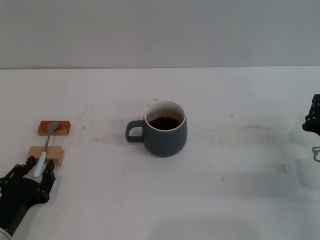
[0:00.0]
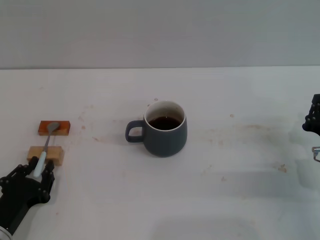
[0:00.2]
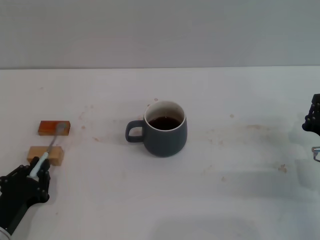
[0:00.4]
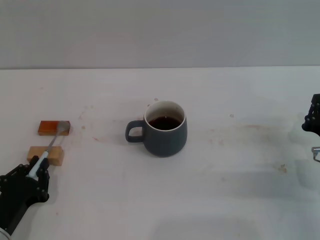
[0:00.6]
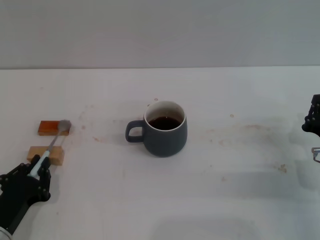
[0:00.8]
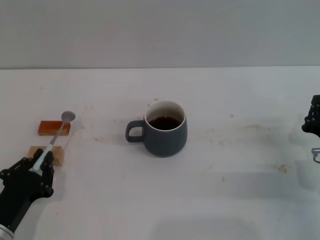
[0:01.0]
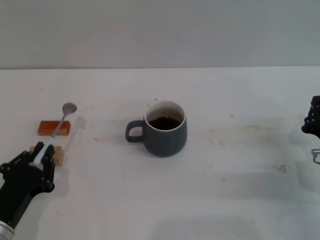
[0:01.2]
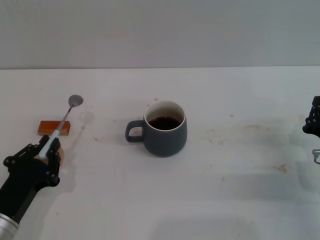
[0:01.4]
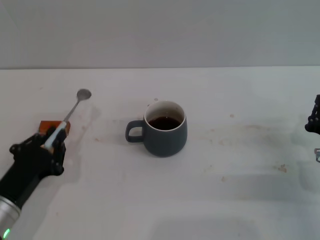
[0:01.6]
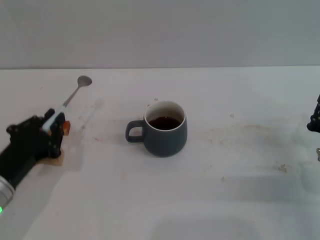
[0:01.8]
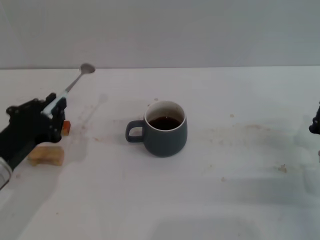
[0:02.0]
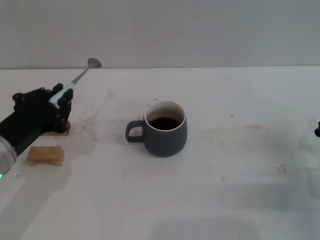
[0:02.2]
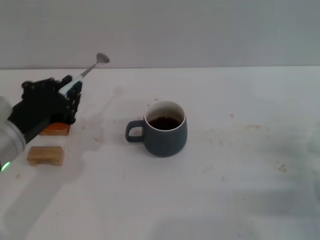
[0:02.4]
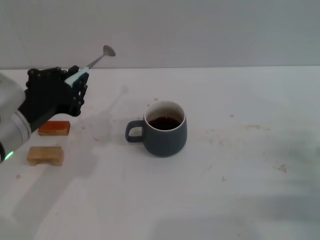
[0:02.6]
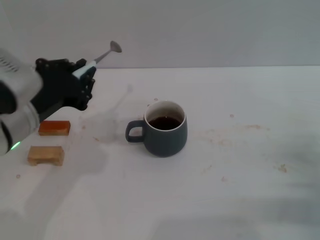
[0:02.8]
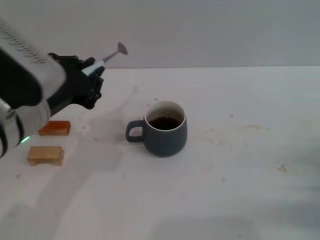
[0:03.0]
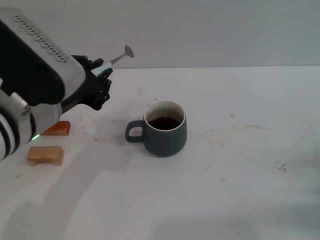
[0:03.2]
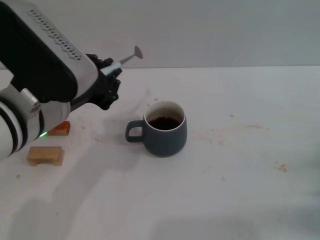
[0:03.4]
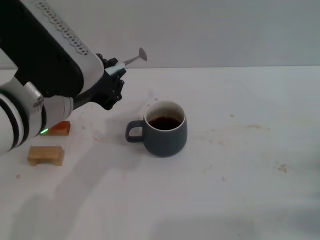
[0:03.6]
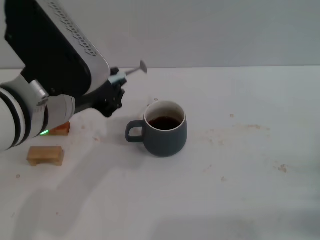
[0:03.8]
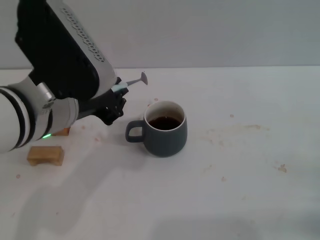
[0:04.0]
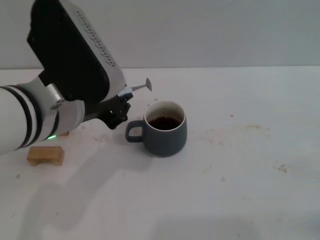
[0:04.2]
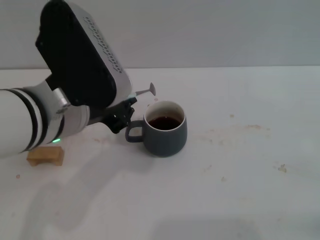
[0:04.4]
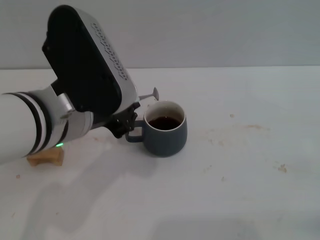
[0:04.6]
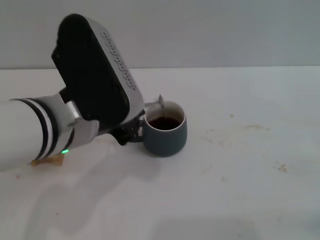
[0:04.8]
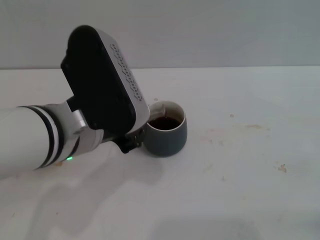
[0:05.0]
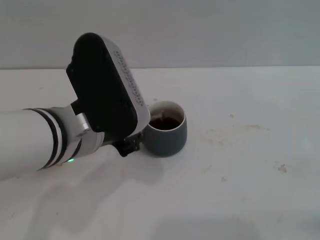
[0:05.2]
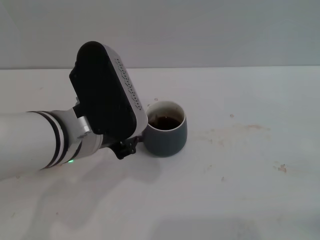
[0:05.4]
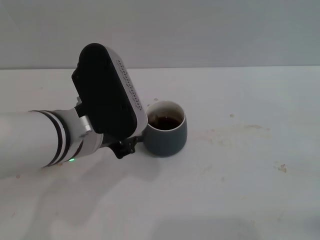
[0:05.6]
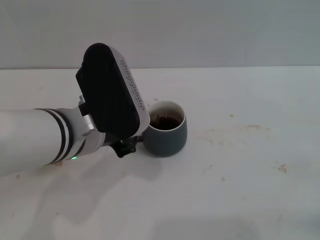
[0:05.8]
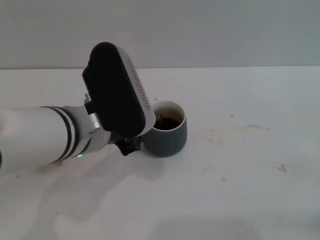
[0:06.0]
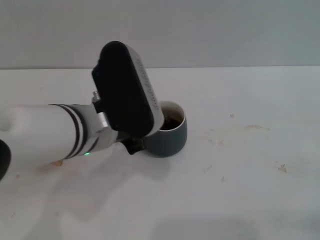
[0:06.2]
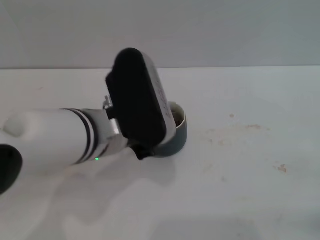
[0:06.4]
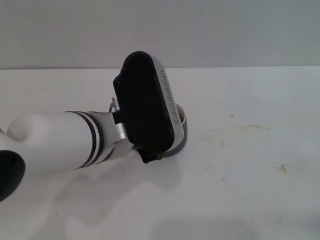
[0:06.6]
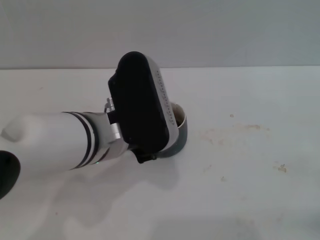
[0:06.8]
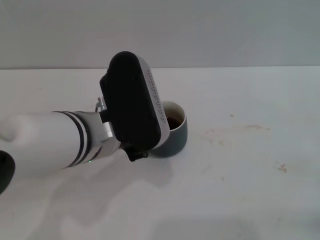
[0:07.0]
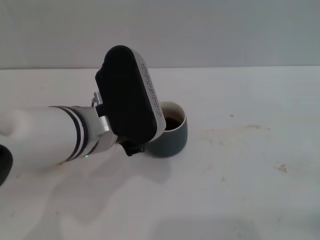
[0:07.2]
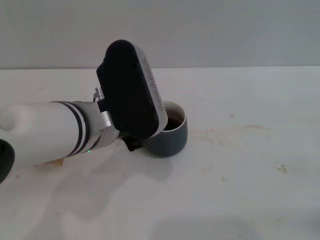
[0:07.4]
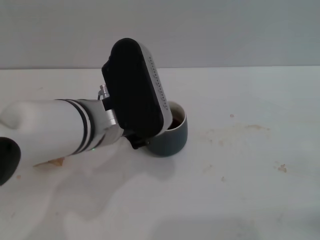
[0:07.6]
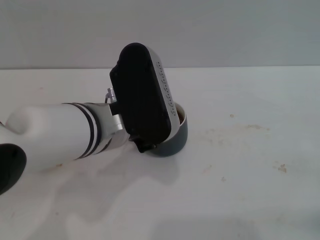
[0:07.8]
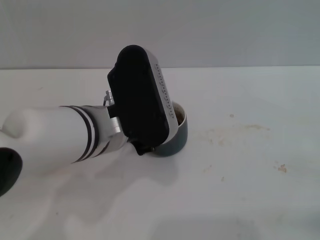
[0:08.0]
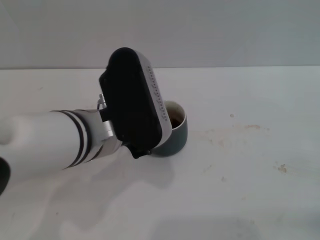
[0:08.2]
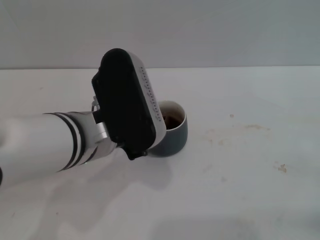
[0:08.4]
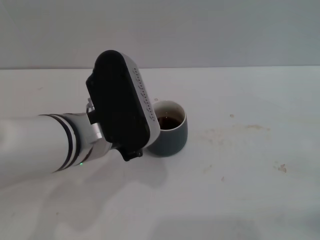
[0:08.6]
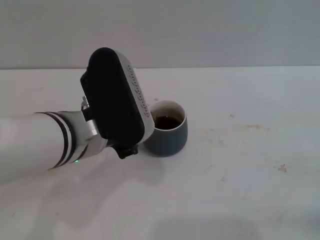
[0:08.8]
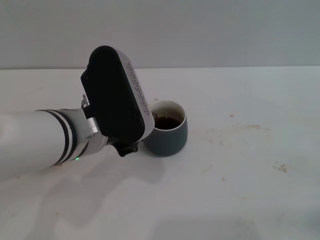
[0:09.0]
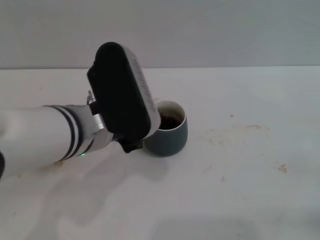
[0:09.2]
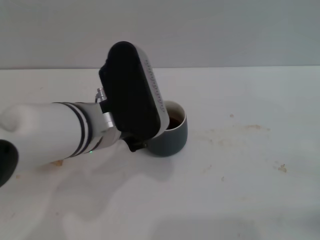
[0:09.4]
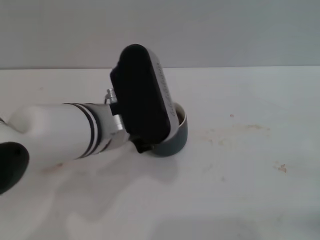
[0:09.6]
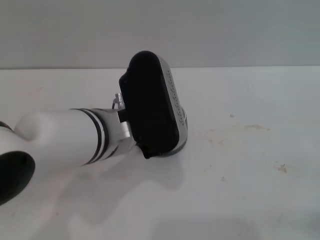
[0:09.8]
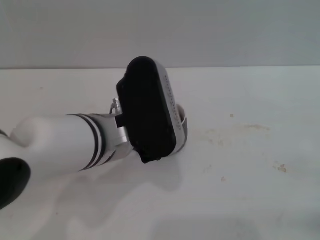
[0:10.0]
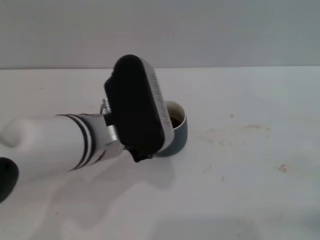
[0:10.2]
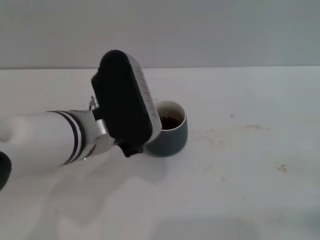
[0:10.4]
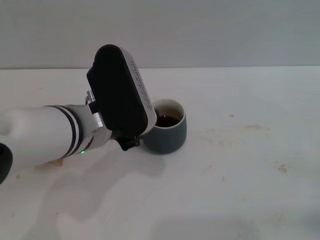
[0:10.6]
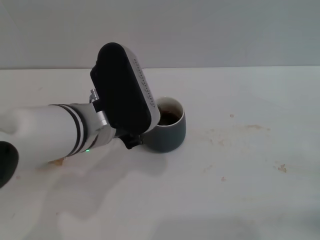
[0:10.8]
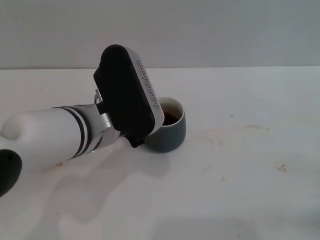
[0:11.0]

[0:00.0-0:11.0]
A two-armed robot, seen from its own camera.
Task of the whole recording: Move the grey cup to the center, lift the blue spoon, stir it three times in the cup, and put the spoon into the cup.
Step, 0.0 to 2.8 s: Pick up the spoon with the left gripper.
0.0 to 1.6 s: The left gripper closes.
1.6 to 3.2 s: The left gripper goes some 20 cm upward and to the right. Meanwhile the right gripper goes approximately 5 cm backward.
4.8 to 11.0 s: The grippers make only small movements.

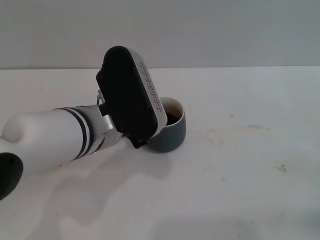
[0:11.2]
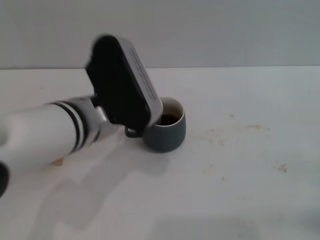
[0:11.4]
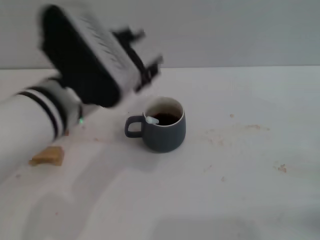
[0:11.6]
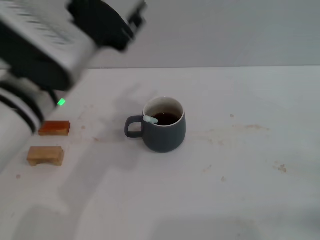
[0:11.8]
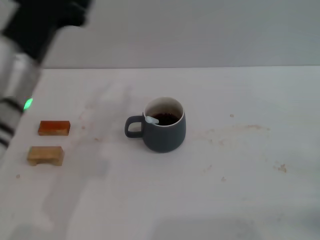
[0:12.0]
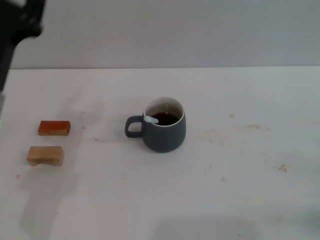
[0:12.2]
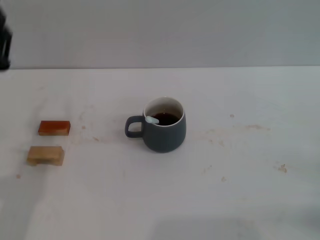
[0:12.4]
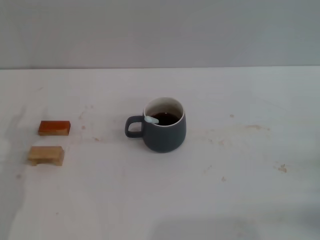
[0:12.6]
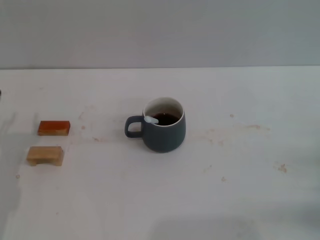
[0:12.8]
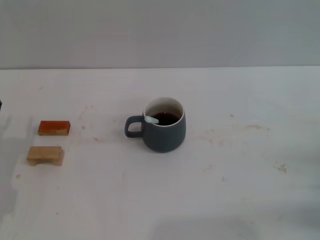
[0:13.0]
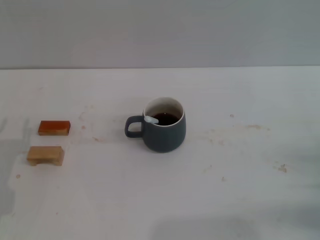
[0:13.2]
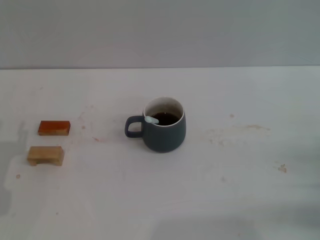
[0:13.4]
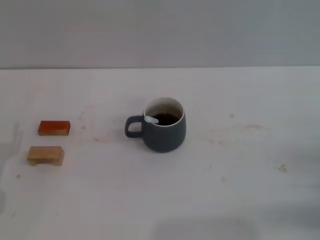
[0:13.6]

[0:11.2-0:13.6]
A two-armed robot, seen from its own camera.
Task of the whole recording: Move the grey cup to the center, lift the blue spoon, stir it three times in the cup, and put the spoon into the cup.
11.2 to 12.4 s: The left gripper travels to the left by approximately 15 cm, and opens up.
12.4 to 13.6 s: The left gripper moves downward and to the left, some 10 cm.

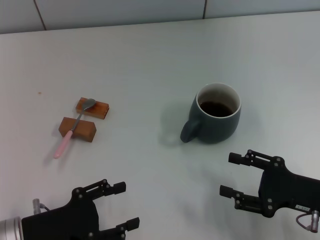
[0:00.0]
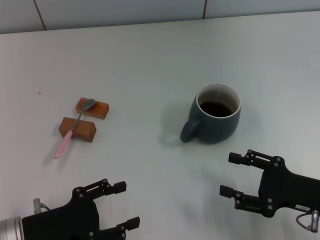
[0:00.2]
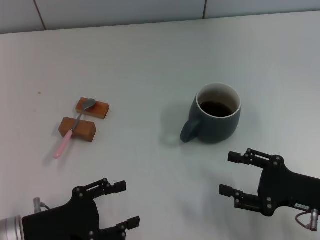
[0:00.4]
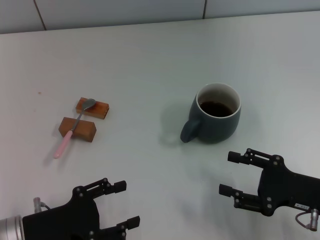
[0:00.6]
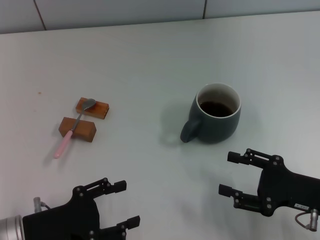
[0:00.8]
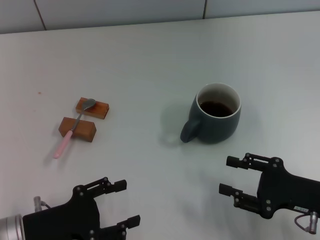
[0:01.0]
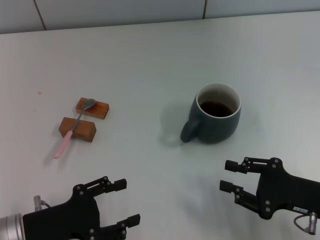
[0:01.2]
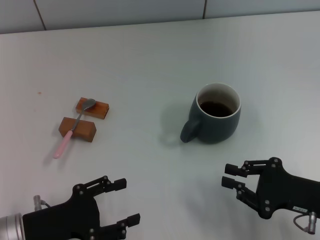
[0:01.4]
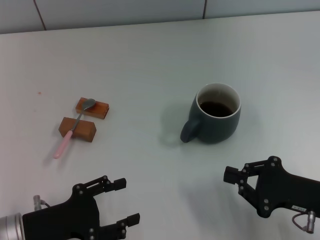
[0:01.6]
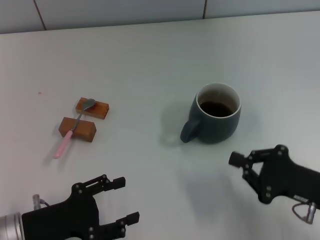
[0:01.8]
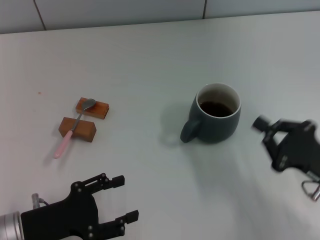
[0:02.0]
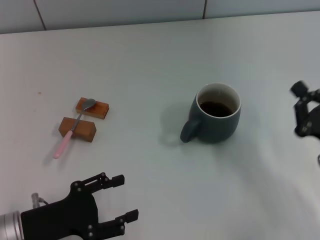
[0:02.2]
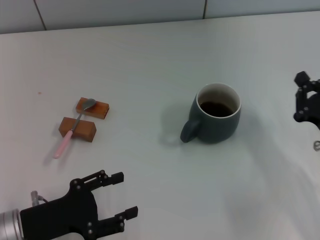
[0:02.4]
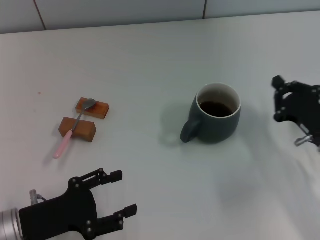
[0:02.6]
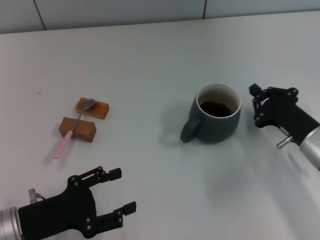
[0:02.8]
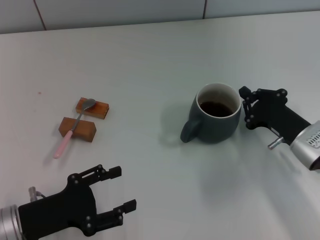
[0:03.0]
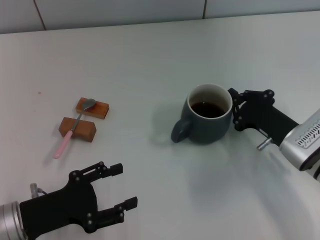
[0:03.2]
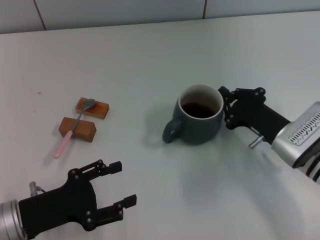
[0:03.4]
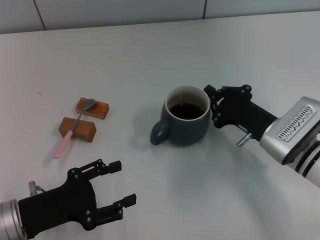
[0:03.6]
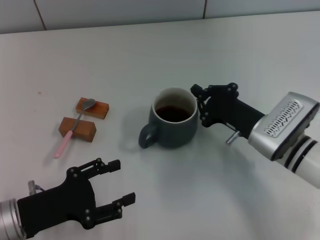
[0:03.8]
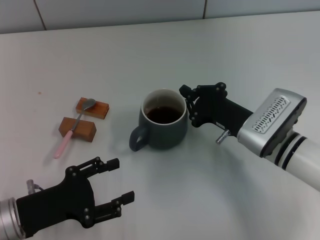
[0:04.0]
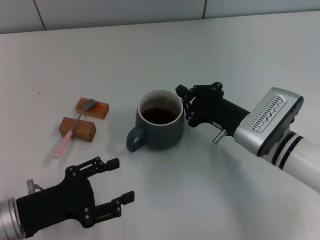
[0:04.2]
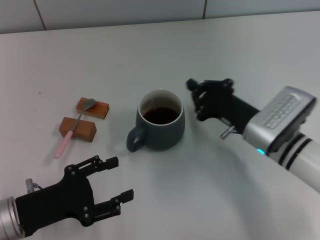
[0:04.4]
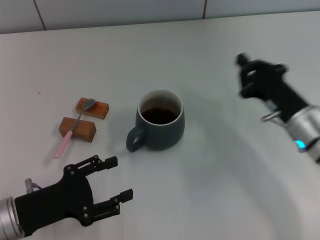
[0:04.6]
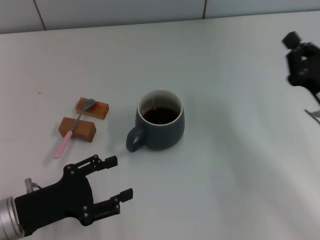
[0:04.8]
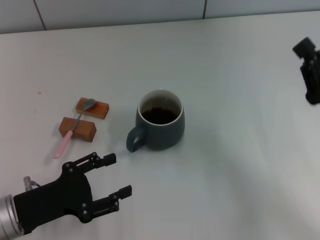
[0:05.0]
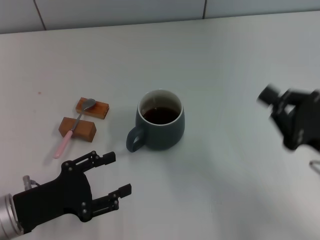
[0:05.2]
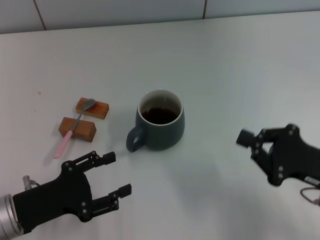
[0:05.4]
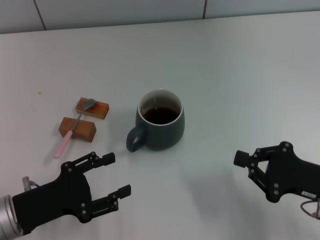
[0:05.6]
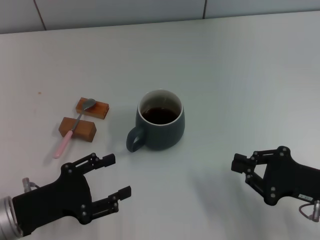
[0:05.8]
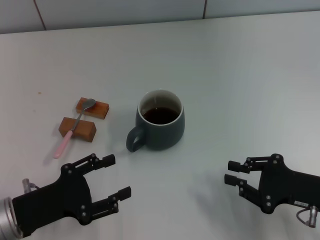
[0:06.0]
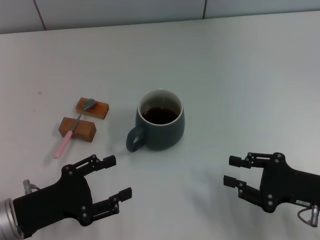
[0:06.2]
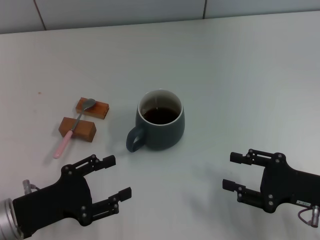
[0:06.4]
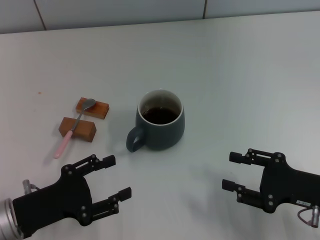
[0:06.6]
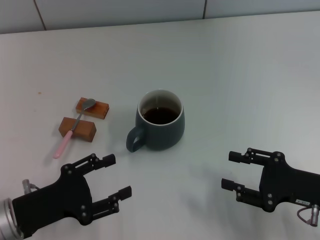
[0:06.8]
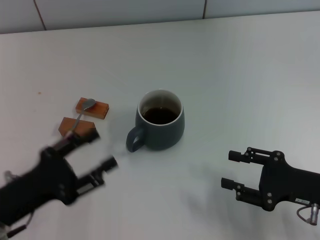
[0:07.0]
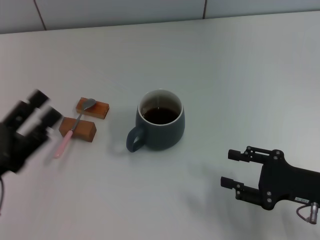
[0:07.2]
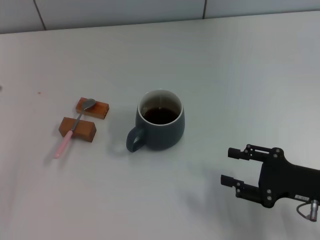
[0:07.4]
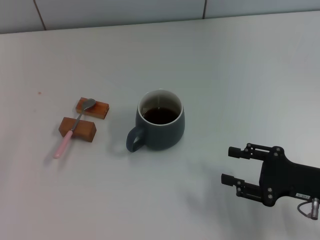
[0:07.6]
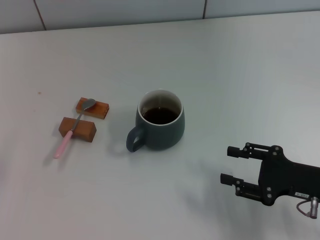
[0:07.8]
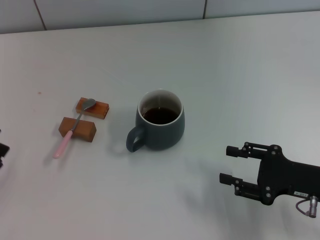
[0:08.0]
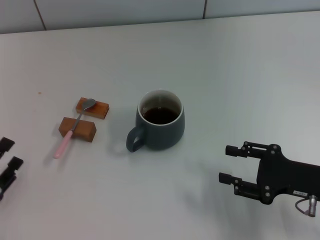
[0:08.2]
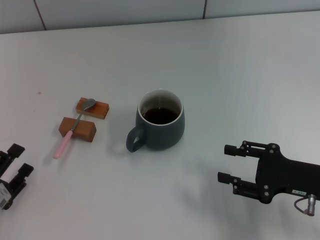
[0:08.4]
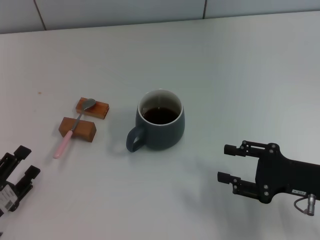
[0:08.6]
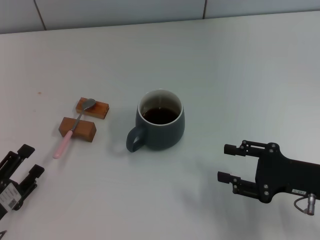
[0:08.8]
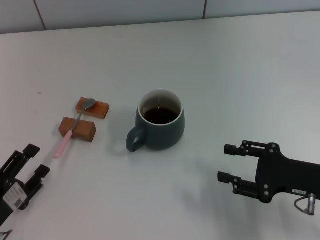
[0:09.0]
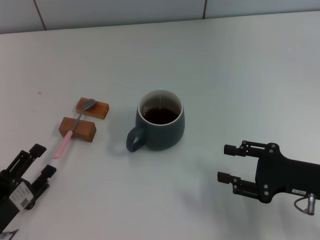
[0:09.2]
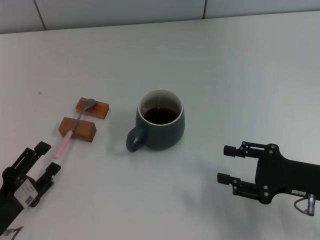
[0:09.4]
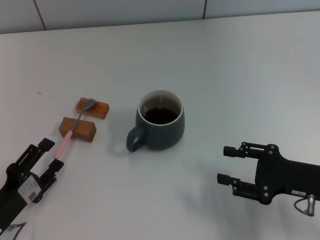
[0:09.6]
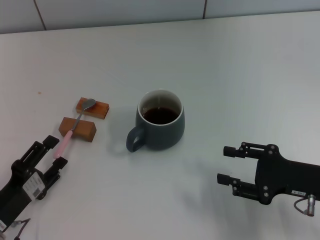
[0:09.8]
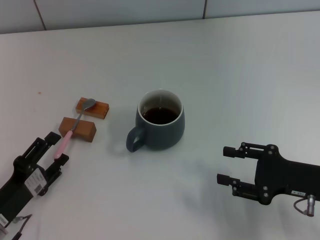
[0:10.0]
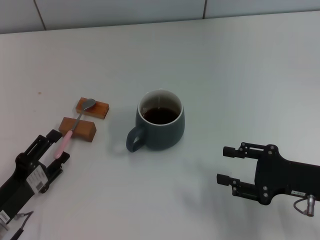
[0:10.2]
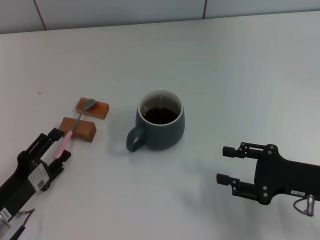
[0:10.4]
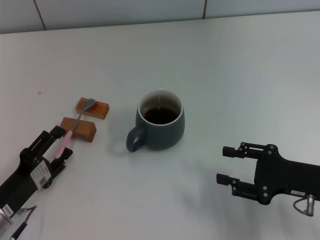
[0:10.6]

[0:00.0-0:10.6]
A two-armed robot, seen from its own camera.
Task of the whole recording: Move the grey cup to the center, lift the pink spoon, stir it three times in the cup, and put the spoon into the cup.
Step, 0.0 to 4.4 s: Move the cup with coffee to the center of view with the right gripper.
0.0 to 1.6 s: The right gripper closes.
1.6 to 3.0 s: The right gripper is displaced forward by about 10 cm, and closes its fingers.
3.0 to 4.6 s: The right gripper moves about 10 cm to the left and comes back.
4.6 to 6.0 s: The right gripper is displaced backward by about 10 cm.
6.0 to 7.6 s: The left gripper heads to the left, covering approximately 10 cm; the right gripper opens.
7.6 to 9.0 s: The left gripper heads downward, covering approximately 5 cm.
9.0 to 10.6 s: There are only small adjustments of the grippers.
